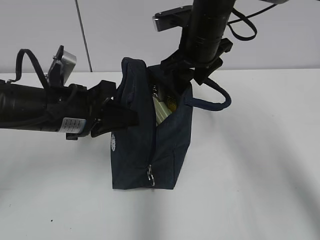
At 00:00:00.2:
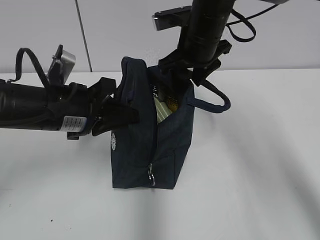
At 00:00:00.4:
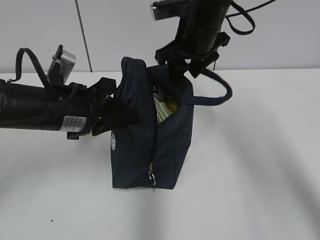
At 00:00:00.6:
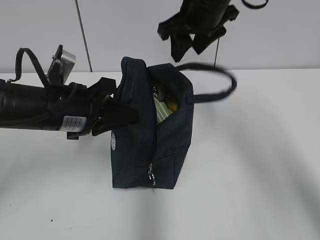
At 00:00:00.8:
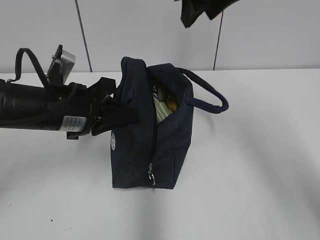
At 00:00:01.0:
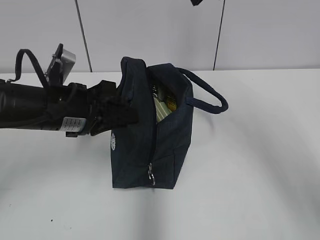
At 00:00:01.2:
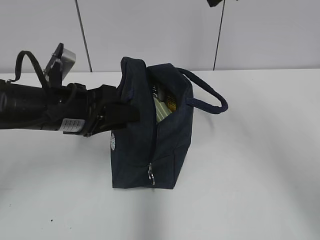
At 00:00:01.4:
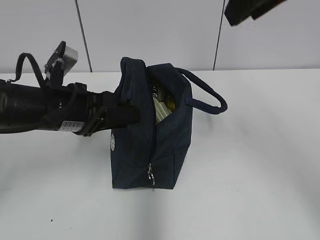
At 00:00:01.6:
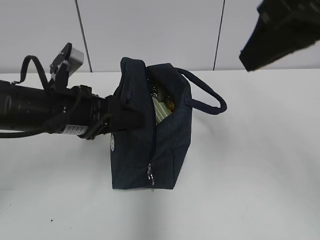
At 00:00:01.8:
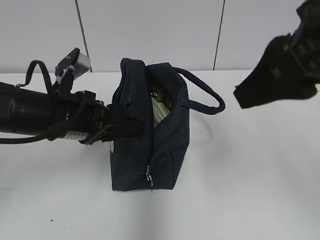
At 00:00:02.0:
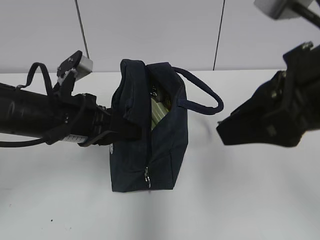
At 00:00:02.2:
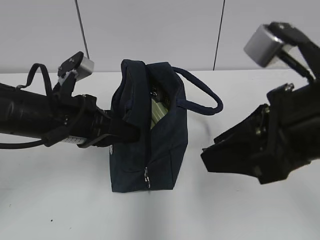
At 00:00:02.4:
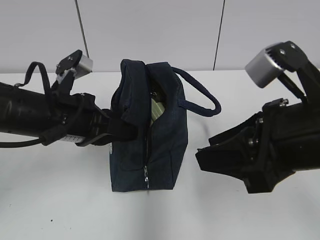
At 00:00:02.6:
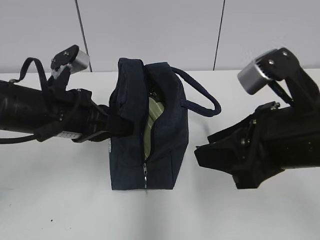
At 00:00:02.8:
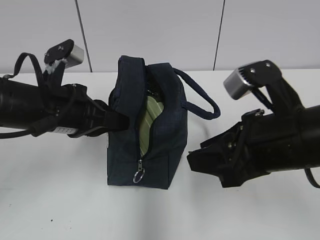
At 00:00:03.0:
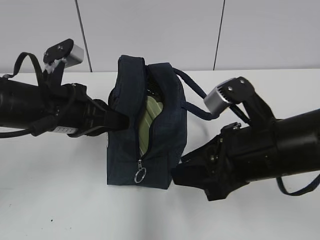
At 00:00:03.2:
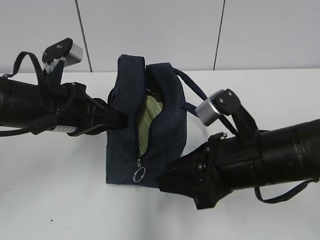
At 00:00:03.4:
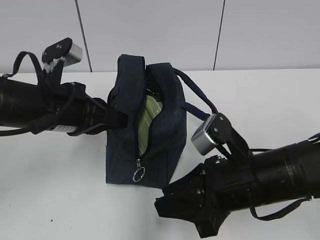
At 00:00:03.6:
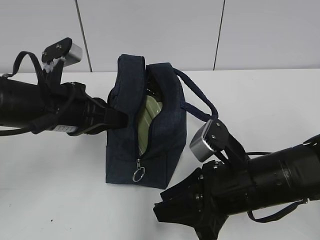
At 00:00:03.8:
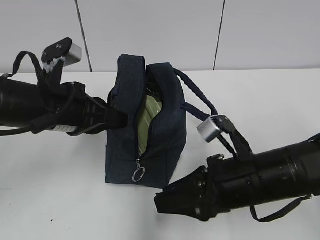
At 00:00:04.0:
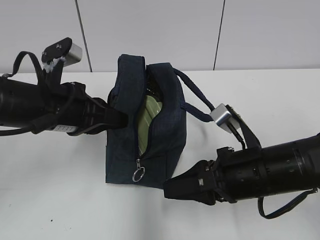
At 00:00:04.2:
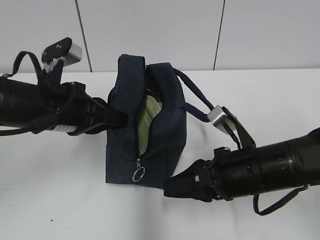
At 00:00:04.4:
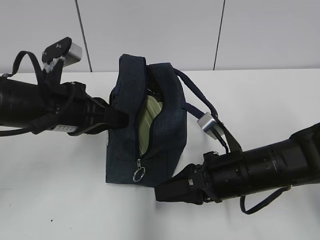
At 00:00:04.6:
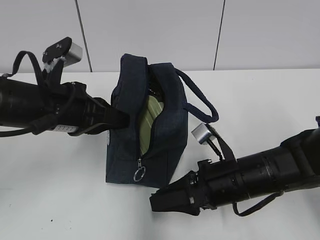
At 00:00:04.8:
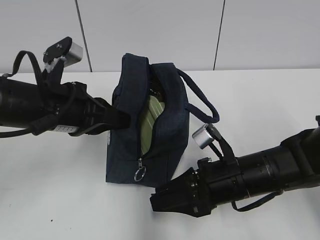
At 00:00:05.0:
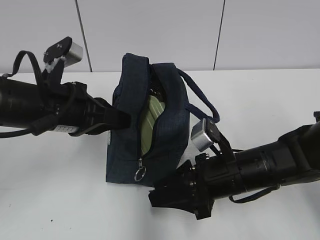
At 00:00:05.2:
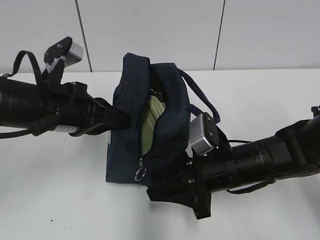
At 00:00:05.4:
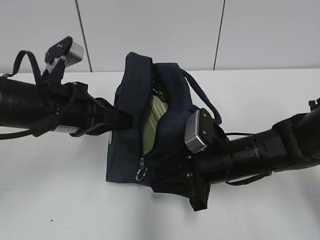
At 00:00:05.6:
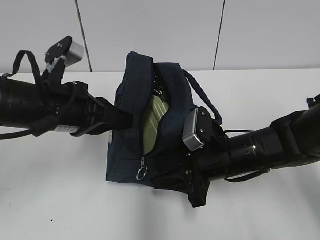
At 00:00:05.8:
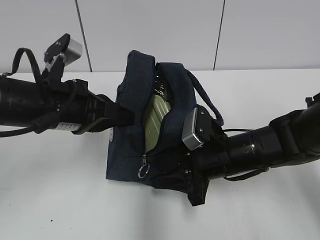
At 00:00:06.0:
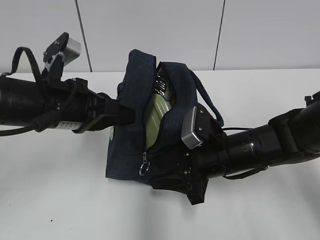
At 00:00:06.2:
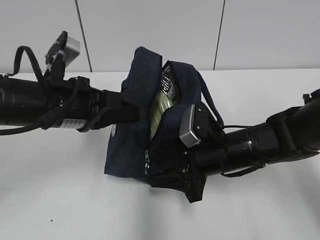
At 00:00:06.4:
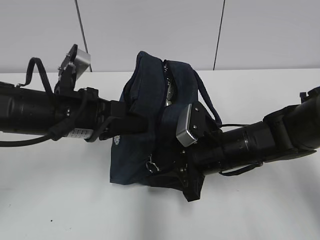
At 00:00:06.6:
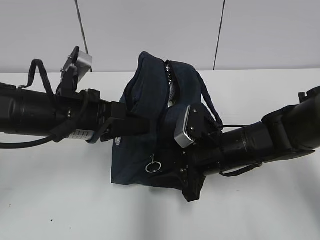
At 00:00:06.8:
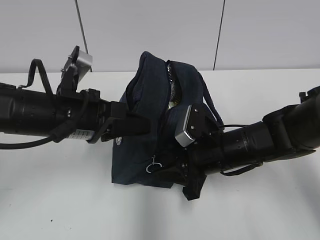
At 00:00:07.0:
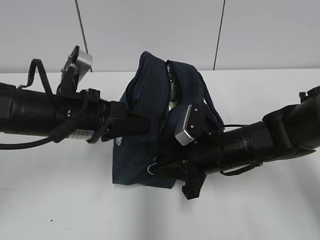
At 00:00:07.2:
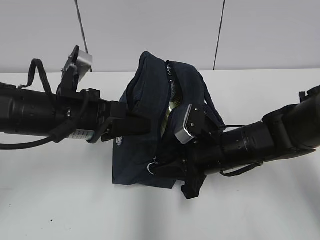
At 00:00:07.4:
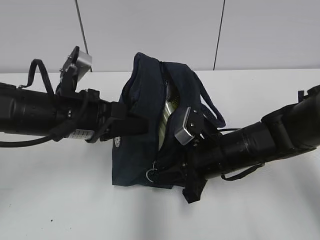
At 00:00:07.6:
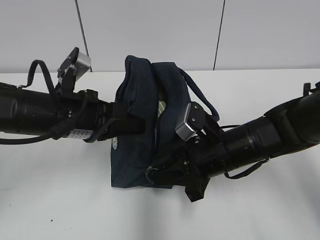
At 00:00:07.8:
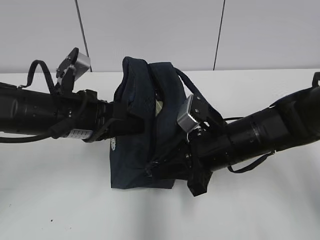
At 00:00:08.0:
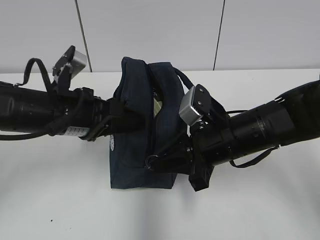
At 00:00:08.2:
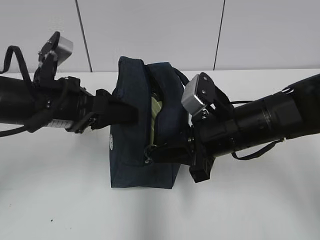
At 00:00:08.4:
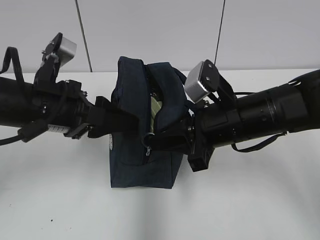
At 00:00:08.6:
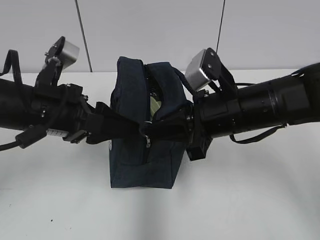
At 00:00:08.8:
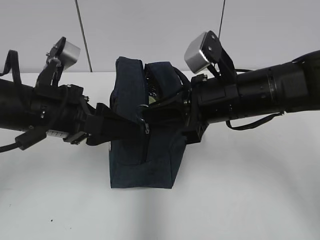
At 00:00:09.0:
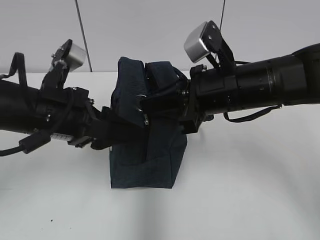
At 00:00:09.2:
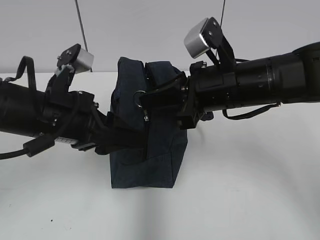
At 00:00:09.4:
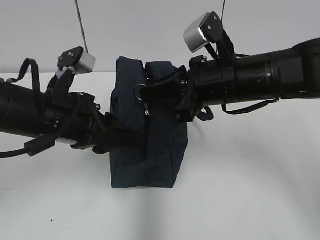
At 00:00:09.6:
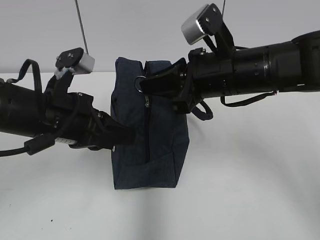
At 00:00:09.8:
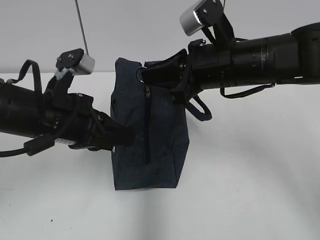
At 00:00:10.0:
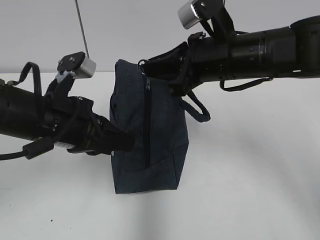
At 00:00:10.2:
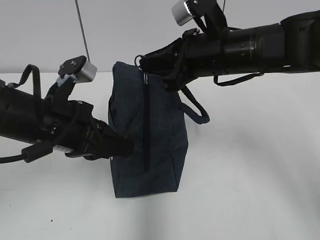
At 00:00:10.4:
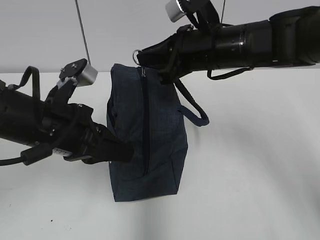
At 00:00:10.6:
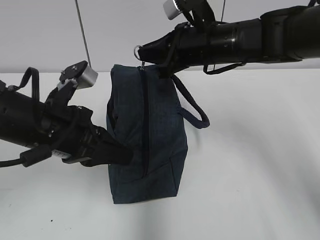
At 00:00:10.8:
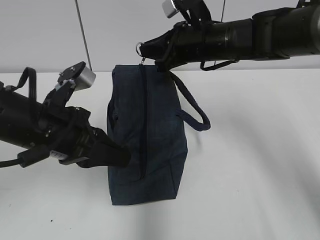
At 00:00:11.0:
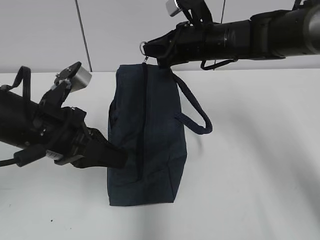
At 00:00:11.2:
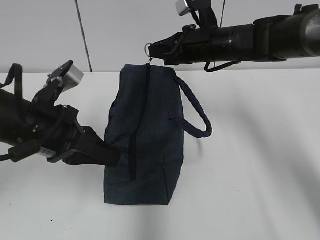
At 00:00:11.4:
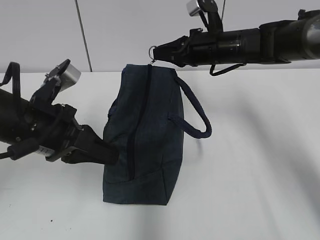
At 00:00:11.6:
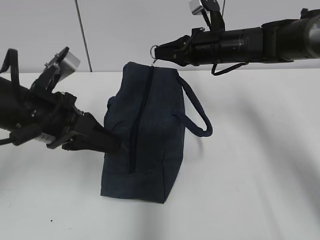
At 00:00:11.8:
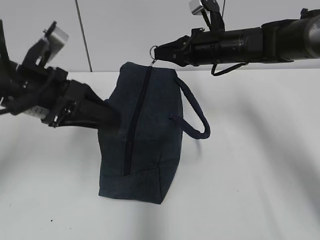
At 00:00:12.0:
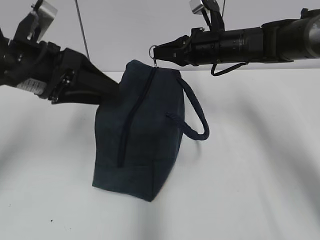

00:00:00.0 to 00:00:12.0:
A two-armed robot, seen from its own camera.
00:00:00.0 to 00:00:01.6: The left gripper opens; the right gripper travels backward and upward by roughly 25 cm.
00:00:01.6 to 00:00:03.0: The right gripper goes about 20 cm downward. Meanwhile the left gripper closes up.
00:00:03.0 to 00:00:04.4: The right gripper moves downward, roughly 10 cm.
00:00:06.0 to 00:00:07.6: The right gripper closes its fingers.
00:00:07.6 to 00:00:09.0: The right gripper heads upward, covering some 10 cm, while the left gripper opens its fingers.
00:00:09.0 to 00:00:10.4: The right gripper is displaced forward by about 5 cm. The left gripper closes.
00:00:10.4 to 00:00:12.0: The left gripper goes about 10 cm upward and forward, and opens up, while the right gripper shifts some 10 cm forward.

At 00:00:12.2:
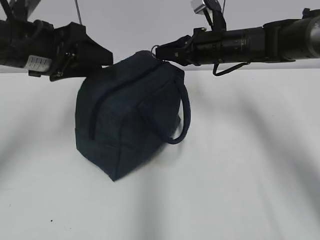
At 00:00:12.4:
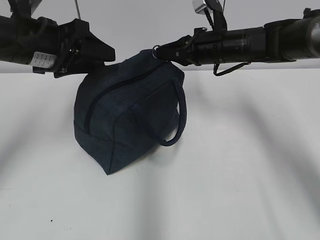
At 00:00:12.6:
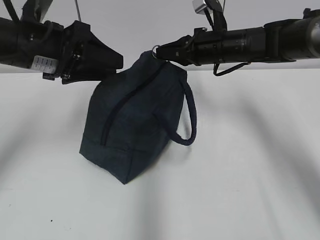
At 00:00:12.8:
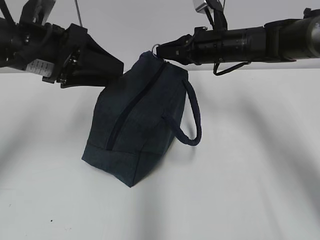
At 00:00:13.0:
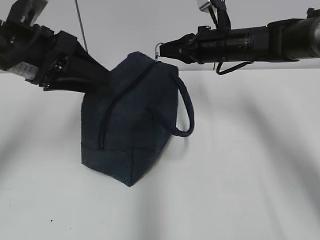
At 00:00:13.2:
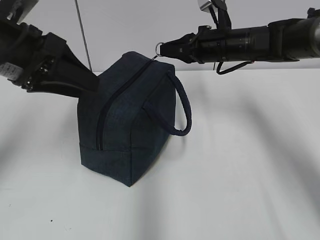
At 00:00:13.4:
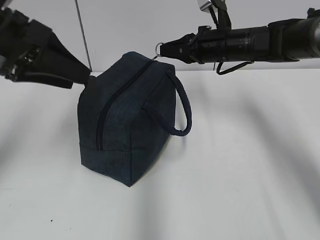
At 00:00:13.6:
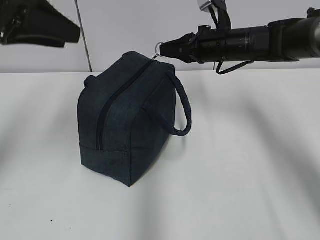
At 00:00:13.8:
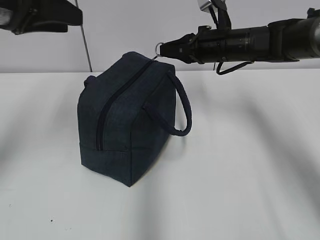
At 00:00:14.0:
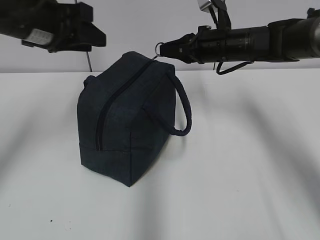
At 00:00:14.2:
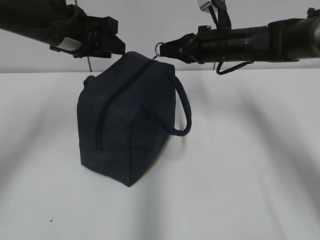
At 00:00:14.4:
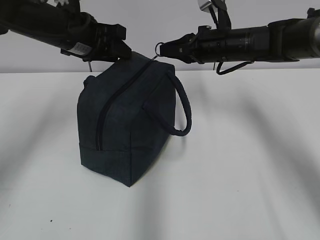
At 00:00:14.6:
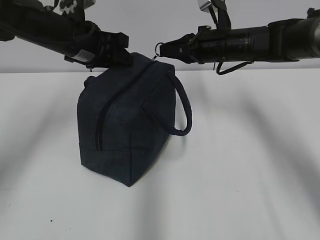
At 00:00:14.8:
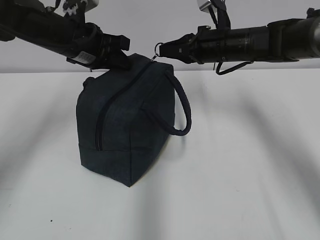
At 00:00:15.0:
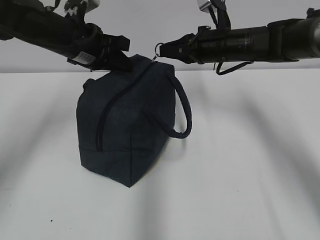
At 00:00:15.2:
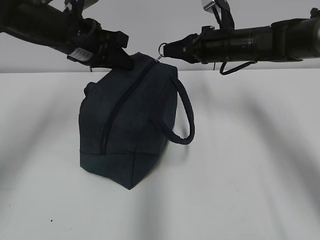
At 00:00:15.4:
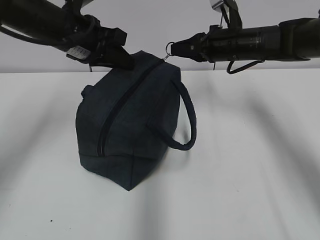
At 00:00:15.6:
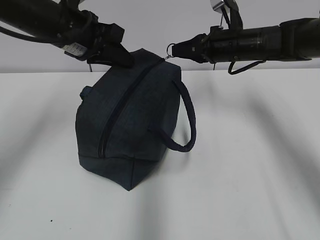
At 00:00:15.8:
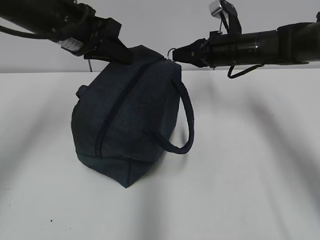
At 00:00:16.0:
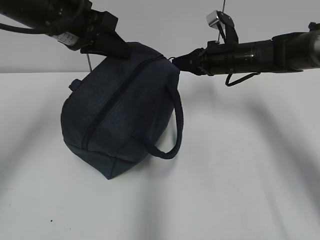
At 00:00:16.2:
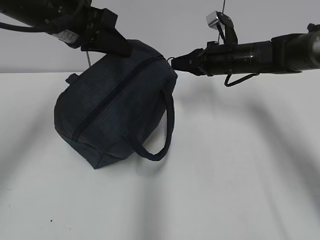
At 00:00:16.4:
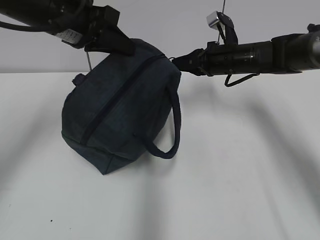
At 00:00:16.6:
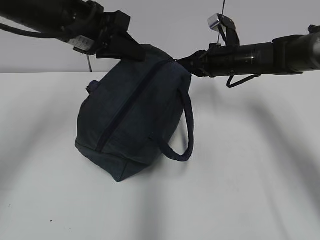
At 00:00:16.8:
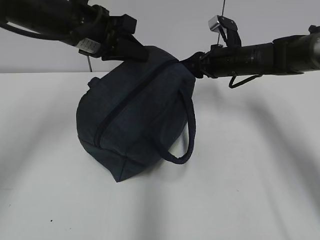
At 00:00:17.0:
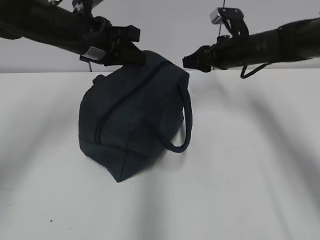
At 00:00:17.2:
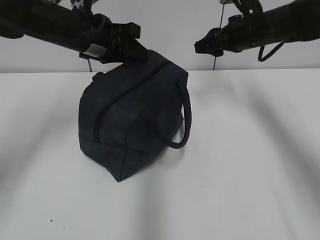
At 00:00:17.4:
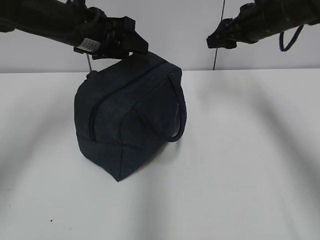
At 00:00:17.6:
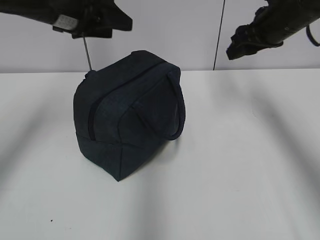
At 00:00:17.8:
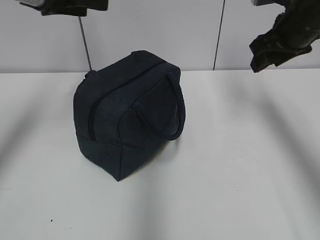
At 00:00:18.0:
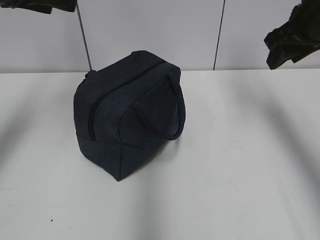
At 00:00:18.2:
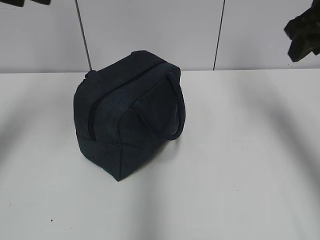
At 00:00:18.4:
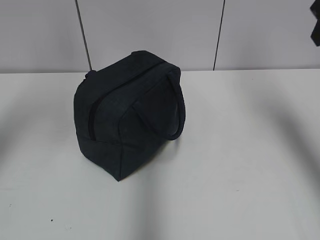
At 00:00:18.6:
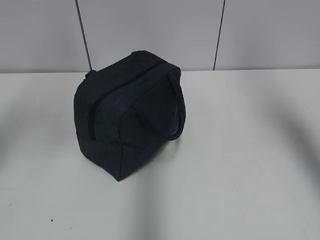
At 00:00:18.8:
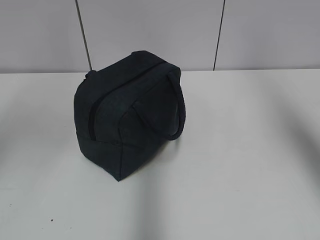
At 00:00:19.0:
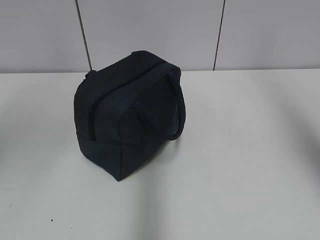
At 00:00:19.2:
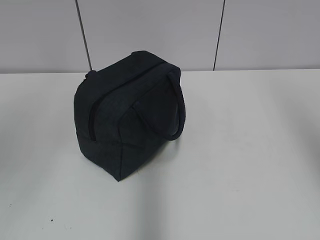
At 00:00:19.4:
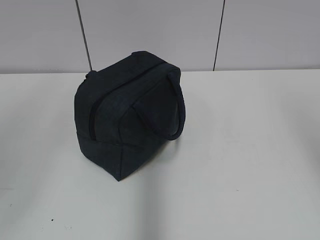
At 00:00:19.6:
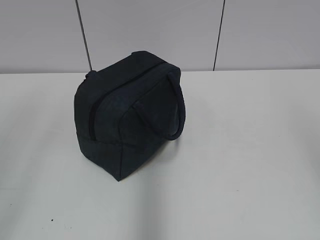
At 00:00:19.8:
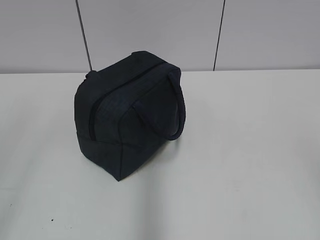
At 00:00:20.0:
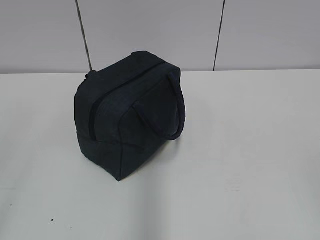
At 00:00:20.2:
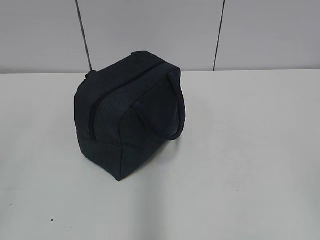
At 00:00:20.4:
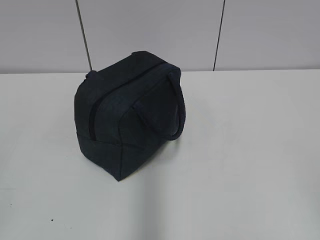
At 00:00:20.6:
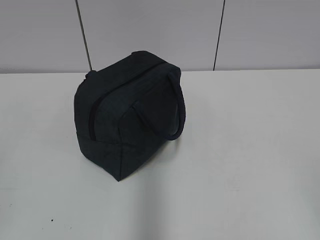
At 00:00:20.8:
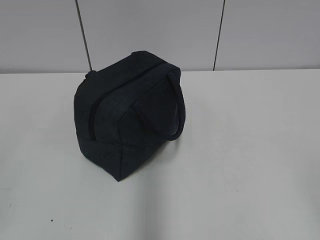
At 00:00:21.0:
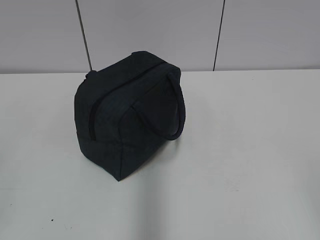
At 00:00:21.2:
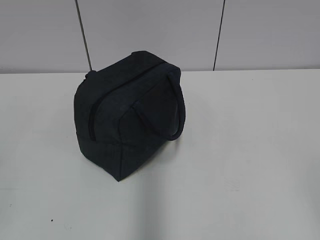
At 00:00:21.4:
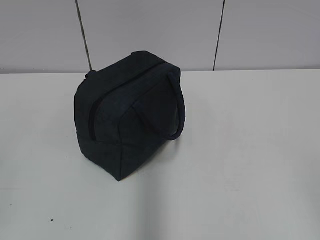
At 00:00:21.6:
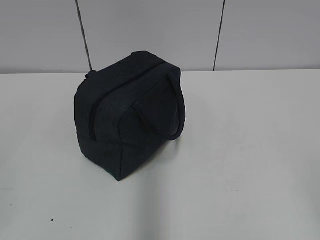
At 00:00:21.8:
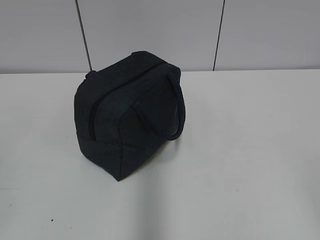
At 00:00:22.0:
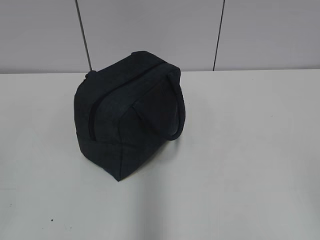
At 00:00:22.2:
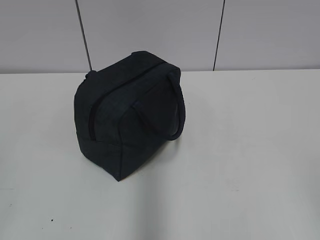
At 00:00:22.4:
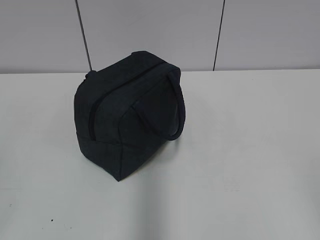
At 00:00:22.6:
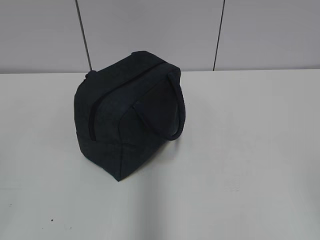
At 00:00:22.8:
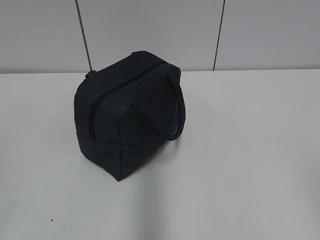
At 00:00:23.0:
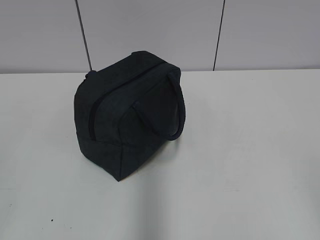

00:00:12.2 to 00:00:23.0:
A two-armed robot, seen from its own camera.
00:00:12.2 to 00:00:13.8: The left gripper moves upward, some 5 cm.
00:00:13.8 to 00:00:15.2: The left gripper shifts some 15 cm forward, downward and to the right, and closes its fingers.
00:00:15.2 to 00:00:16.8: The right gripper moves approximately 5 cm, and opens up.
00:00:16.8 to 00:00:18.4: The right gripper is displaced upward and backward by about 25 cm, while the left gripper travels upward, to the left and backward by some 20 cm, and opens.
00:00:18.4 to 00:00:20.0: The grippers both shift backward by some 30 cm.
